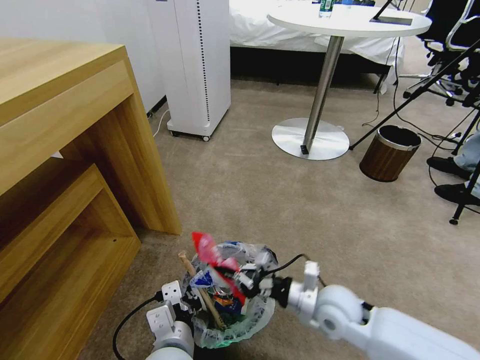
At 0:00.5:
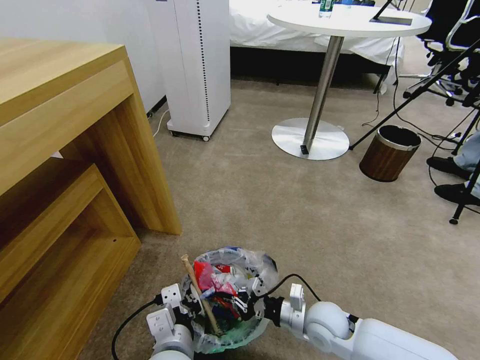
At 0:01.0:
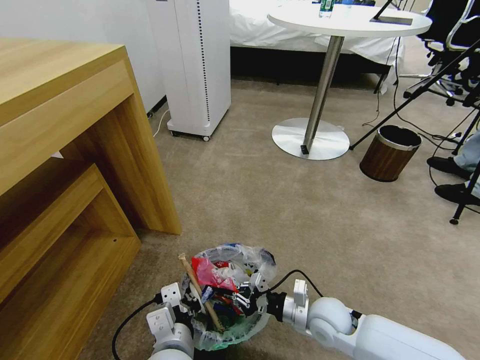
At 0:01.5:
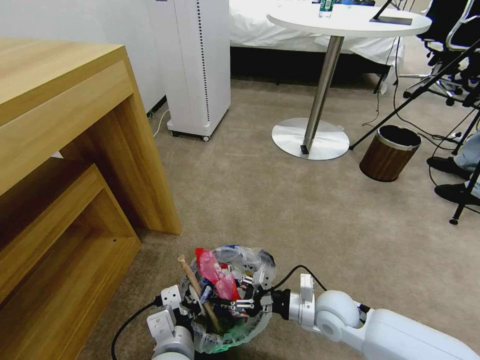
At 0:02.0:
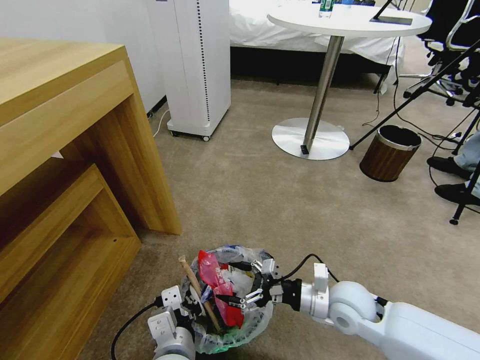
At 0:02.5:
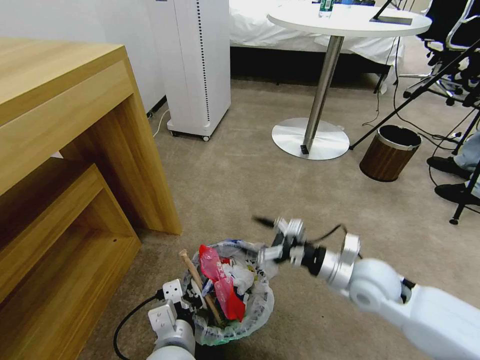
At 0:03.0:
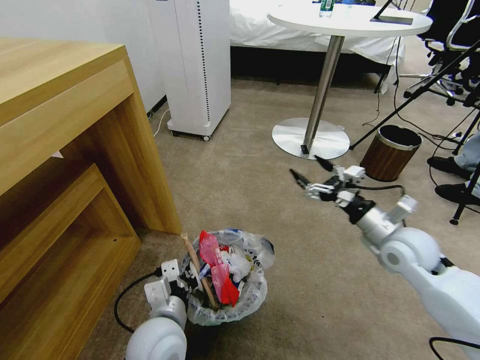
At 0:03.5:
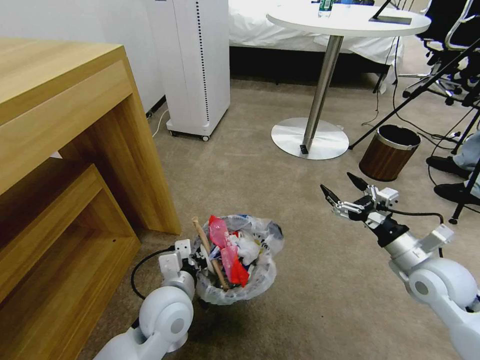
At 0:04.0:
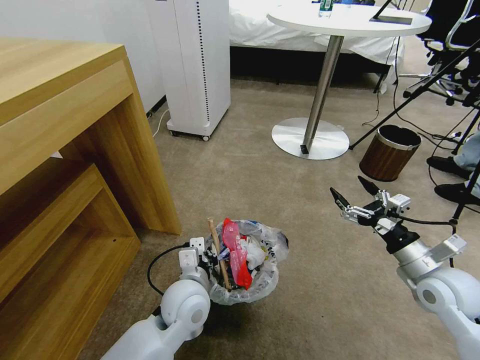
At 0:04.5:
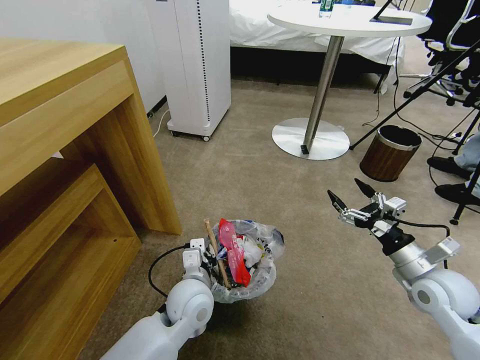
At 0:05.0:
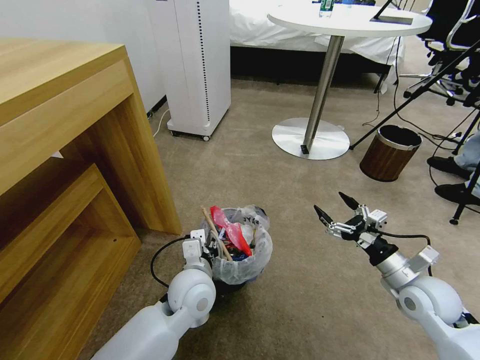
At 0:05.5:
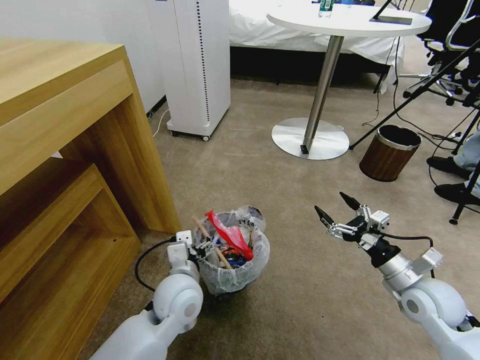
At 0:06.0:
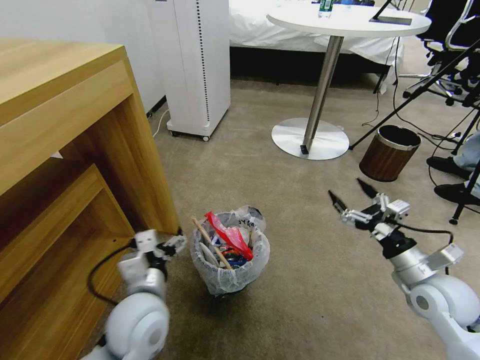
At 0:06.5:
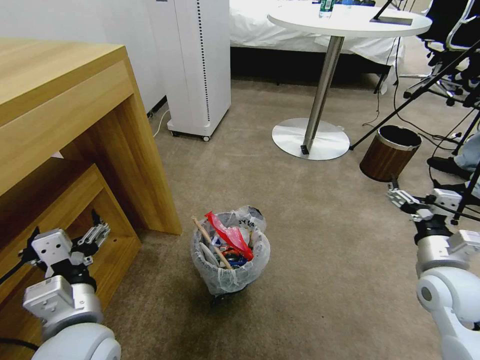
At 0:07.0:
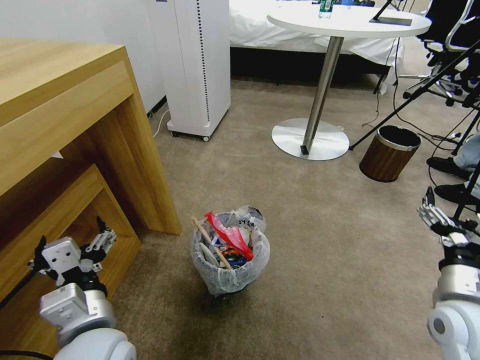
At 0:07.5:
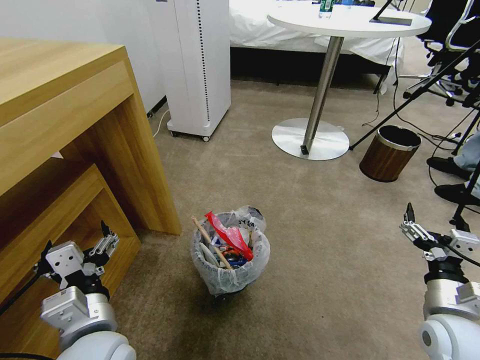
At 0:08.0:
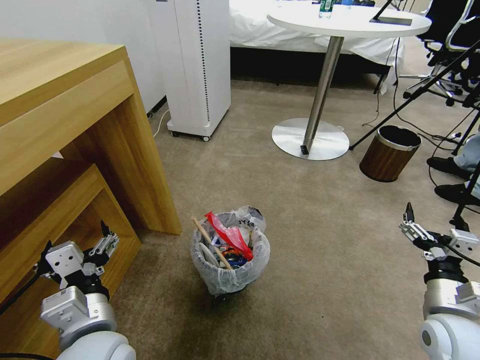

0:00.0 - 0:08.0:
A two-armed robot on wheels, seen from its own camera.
Task of the whole recording: Pick up the trash bin and place the garbage on the floor into it.
0:00.0 - 0:02.0: The right gripper moves approximately 5 cm downward and comes back, and opens.
0:02.0 - 0:04.0: The left gripper goes about 15 cm forward; the right gripper travels to the right and upward by approximately 20 cm.
0:04.0 - 0:06.0: The left gripper goes some 10 cm to the left, upward and backward, and opens its fingers.
0:06.0 - 0:08.0: Both grippers travel together backward, approximately 5 cm.

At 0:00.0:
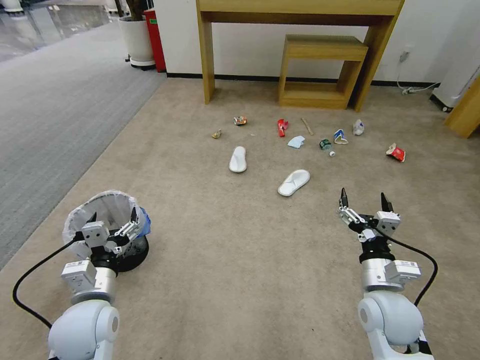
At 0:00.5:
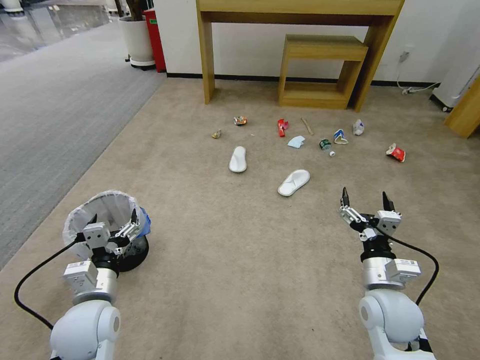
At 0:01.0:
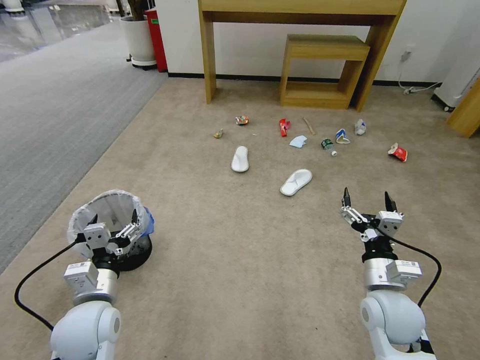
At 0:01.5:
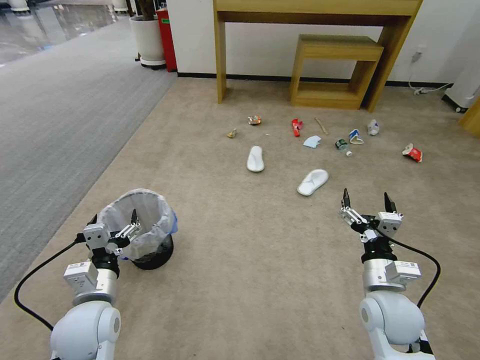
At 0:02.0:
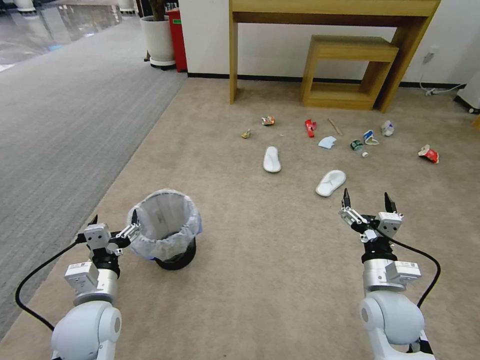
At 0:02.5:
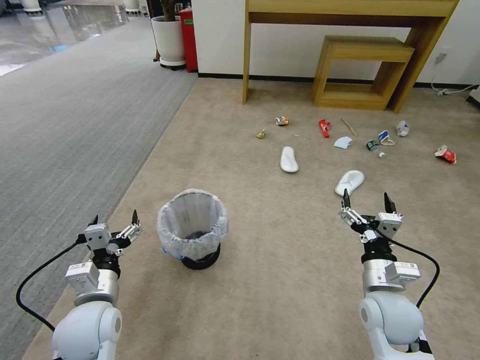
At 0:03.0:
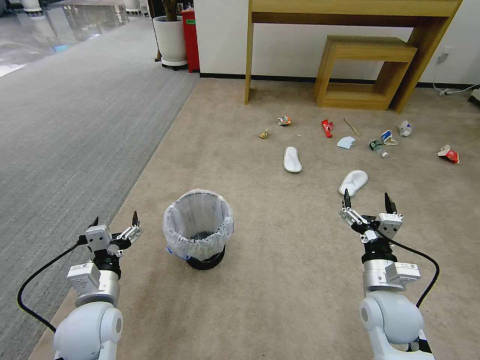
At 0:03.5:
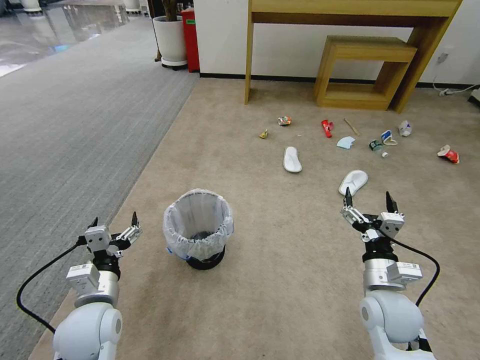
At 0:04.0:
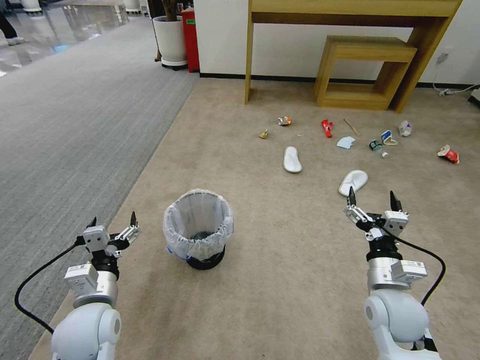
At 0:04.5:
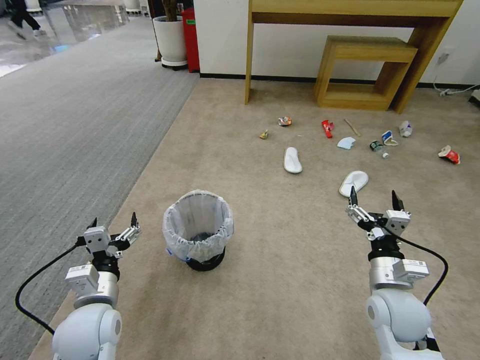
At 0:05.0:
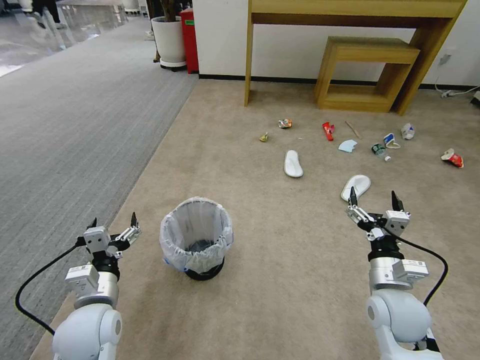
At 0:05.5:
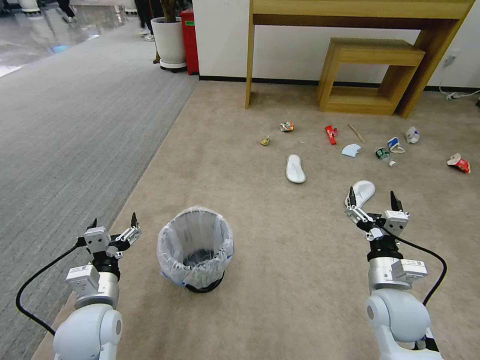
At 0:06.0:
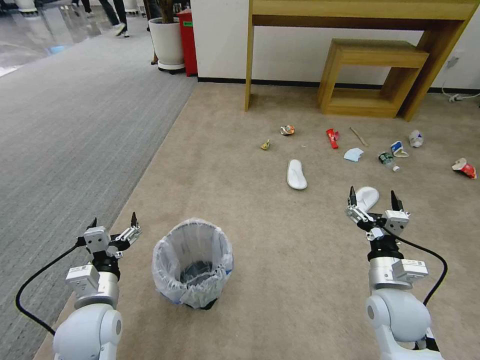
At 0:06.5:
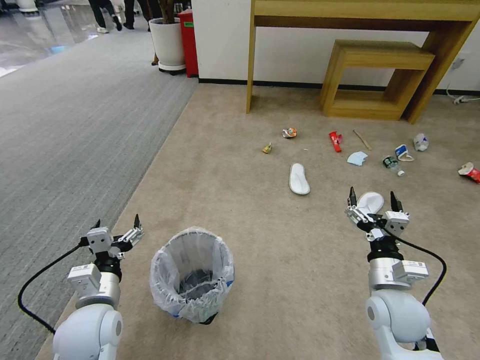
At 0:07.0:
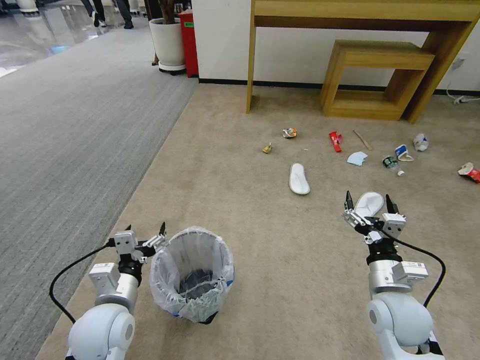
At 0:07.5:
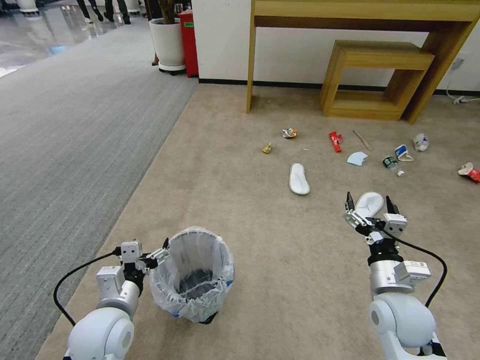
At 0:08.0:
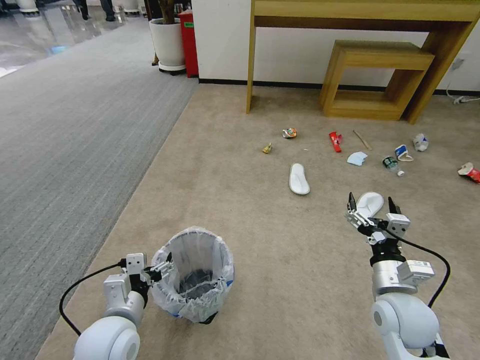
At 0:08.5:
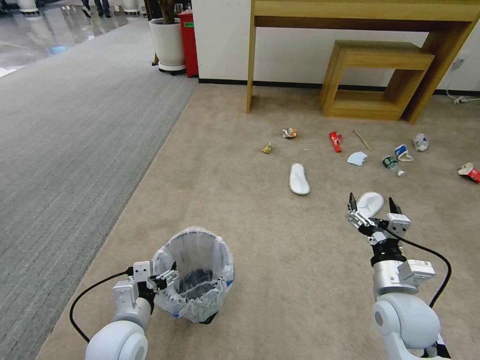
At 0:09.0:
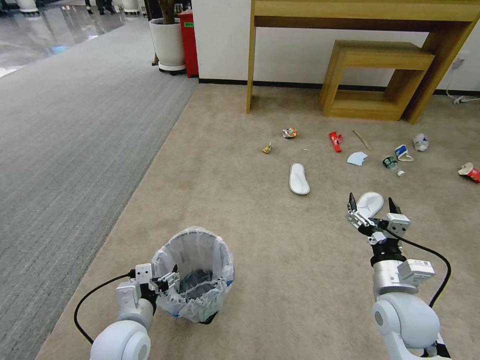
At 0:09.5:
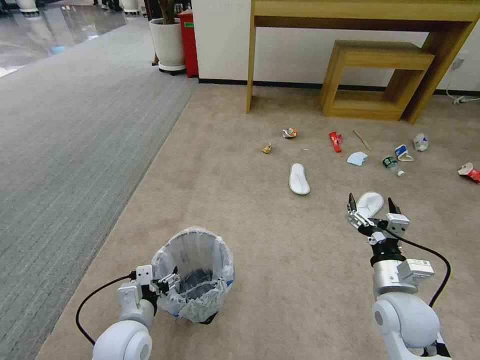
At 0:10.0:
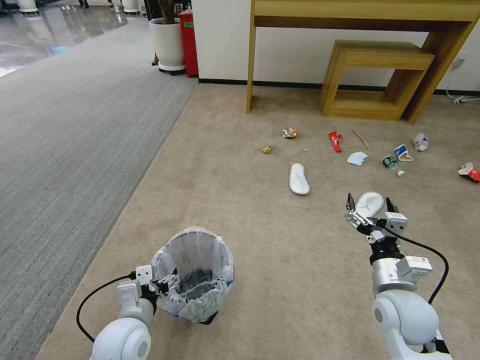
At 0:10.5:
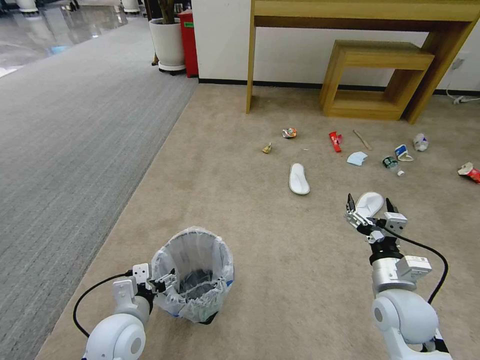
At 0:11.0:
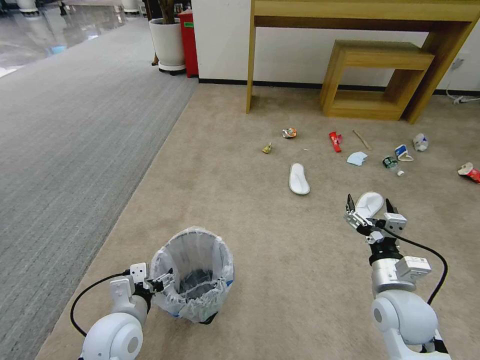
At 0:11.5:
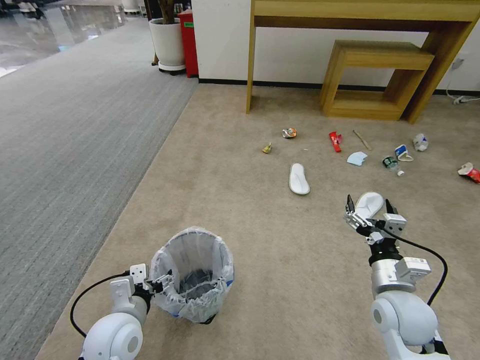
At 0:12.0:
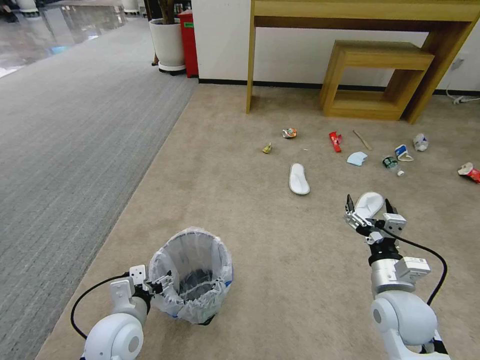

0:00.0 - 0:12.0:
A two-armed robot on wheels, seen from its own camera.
Task of the whole recording: Pick up the trash bin and place the garbage on the floor into it.
0:02.0 - 0:06.0: Both grippers stay put.
0:08.0 - 0:12.0: The grippers stay close to where they were, moving slightly.

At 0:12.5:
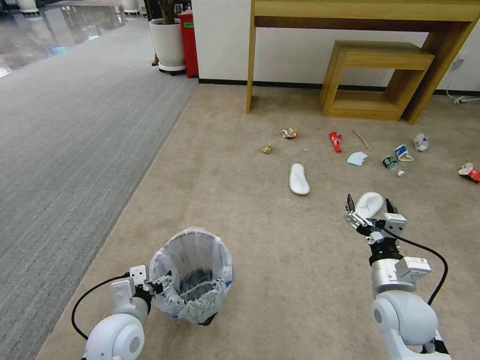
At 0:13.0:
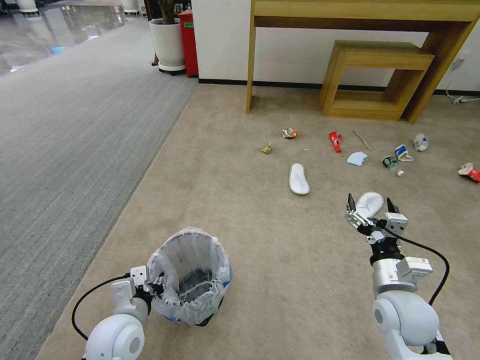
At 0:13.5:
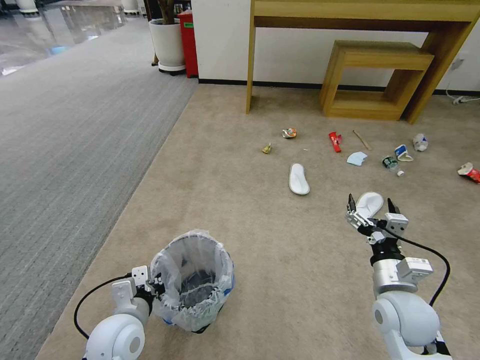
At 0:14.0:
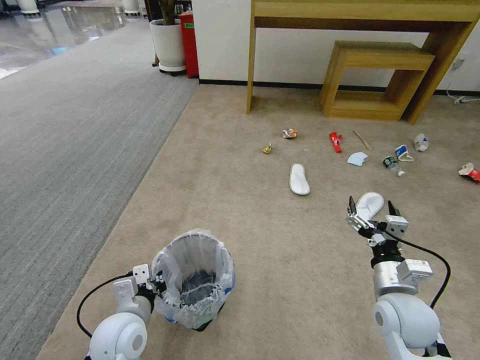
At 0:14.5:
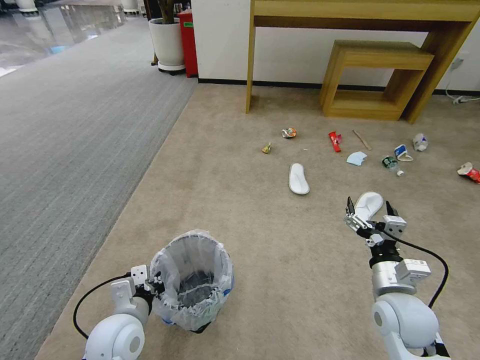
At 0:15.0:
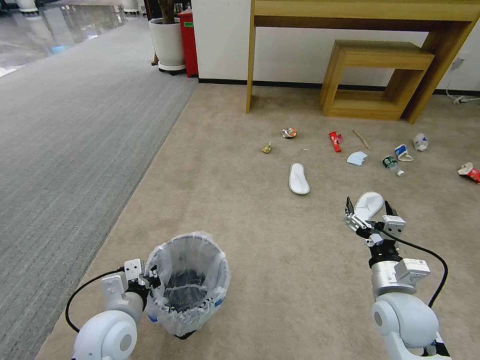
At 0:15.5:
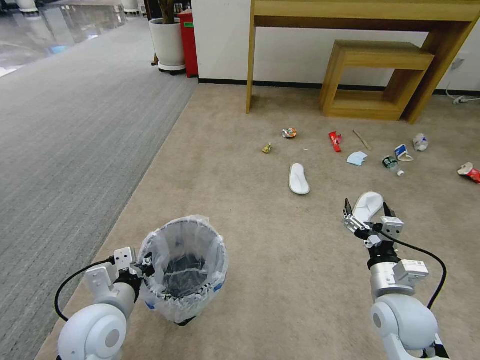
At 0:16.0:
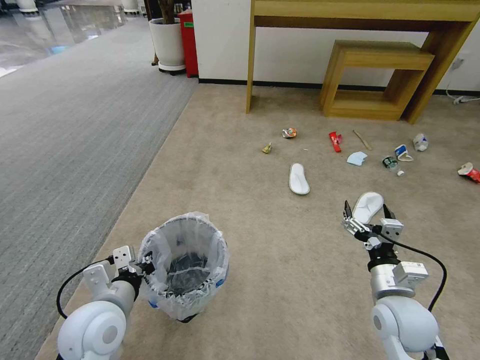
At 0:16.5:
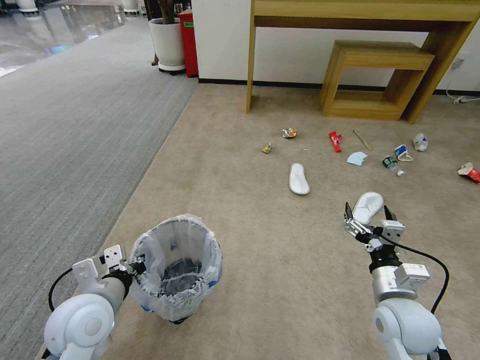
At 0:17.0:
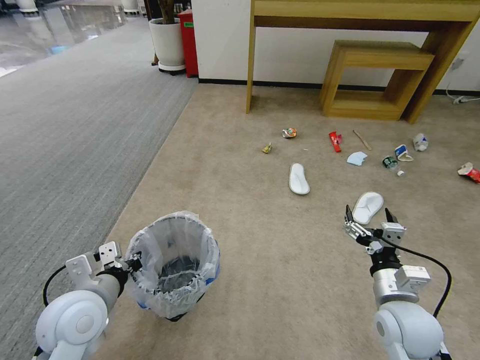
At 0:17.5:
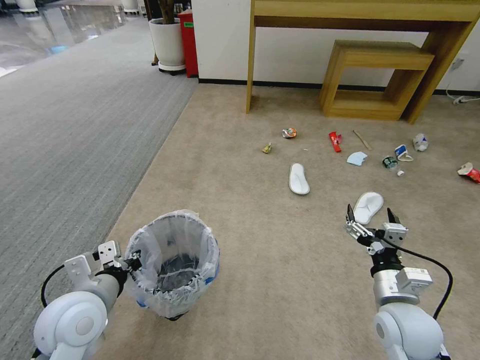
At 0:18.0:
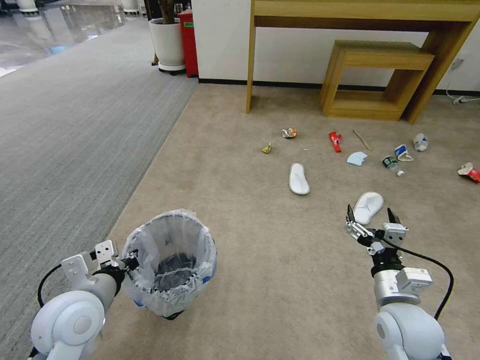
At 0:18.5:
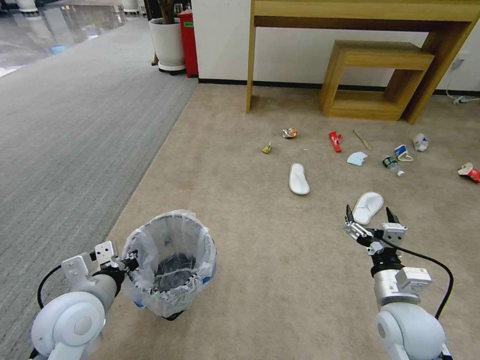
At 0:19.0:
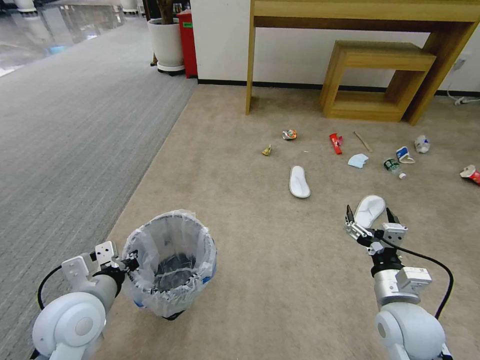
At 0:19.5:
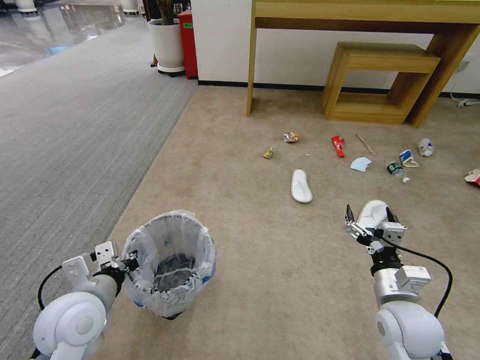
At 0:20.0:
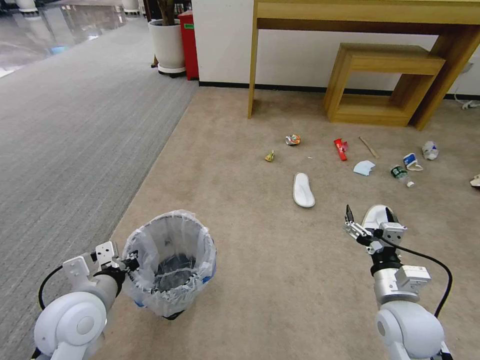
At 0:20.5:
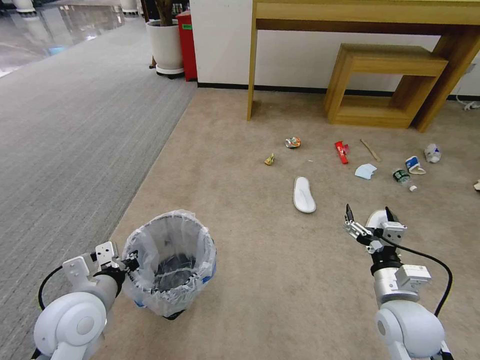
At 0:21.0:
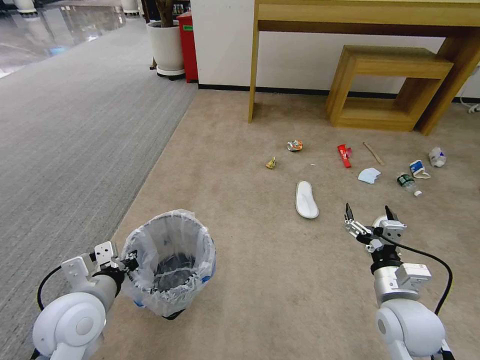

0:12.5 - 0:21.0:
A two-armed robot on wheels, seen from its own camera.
Task of the whole recording: Pick up the trash bin and place the garbage on the floor into it.
0:12.5 - 0:14.5: The left gripper closes its fingers.
0:14.5 - 0:16.5: The left gripper heads upward, covering roughly 10 cm.
0:16.5 - 0:19.0: The grippers stay close to where they were, moving slightly.
0:19.0 - 0:21.0: Both grippers stay about where they are.
